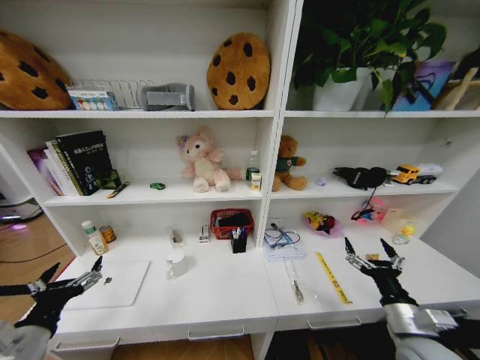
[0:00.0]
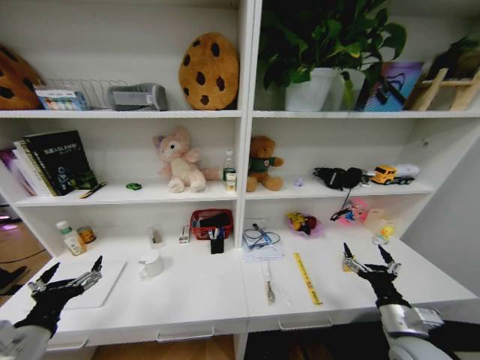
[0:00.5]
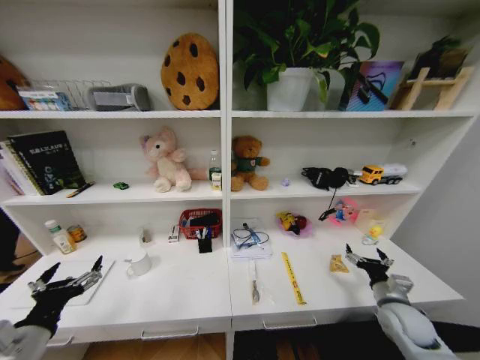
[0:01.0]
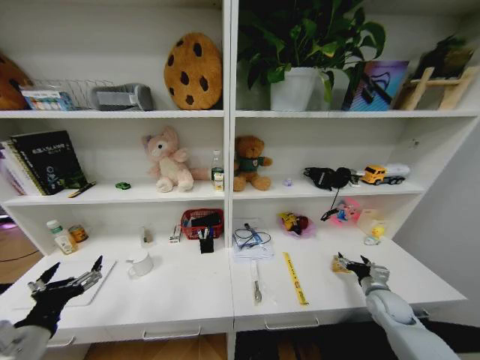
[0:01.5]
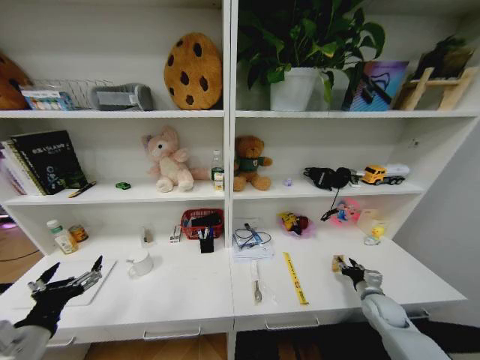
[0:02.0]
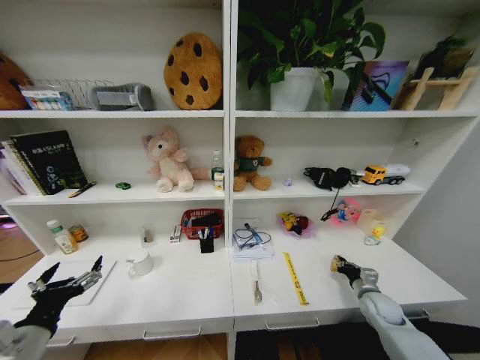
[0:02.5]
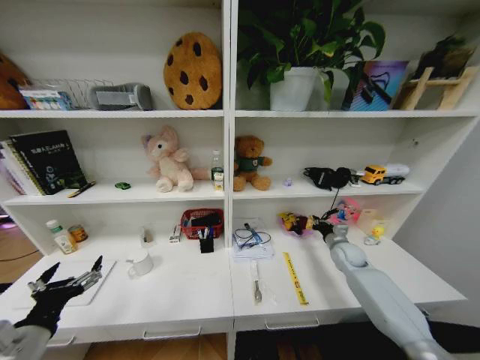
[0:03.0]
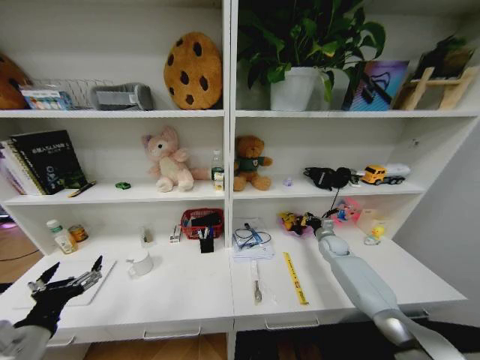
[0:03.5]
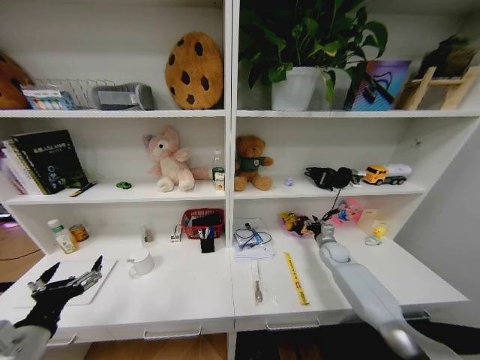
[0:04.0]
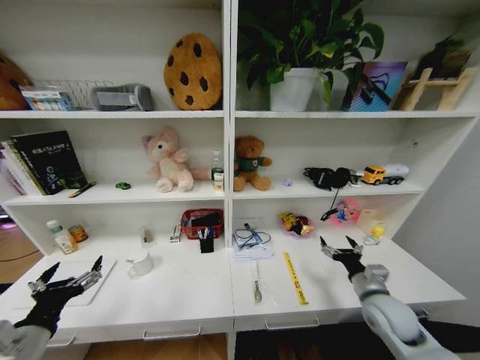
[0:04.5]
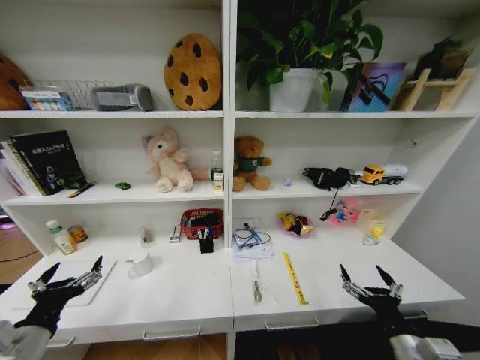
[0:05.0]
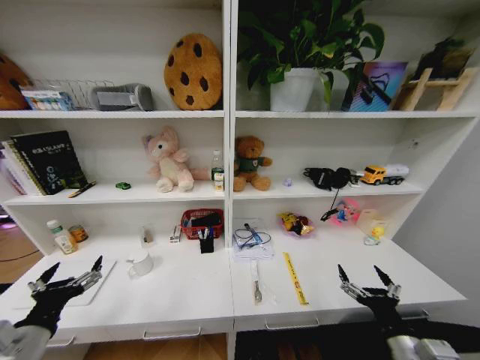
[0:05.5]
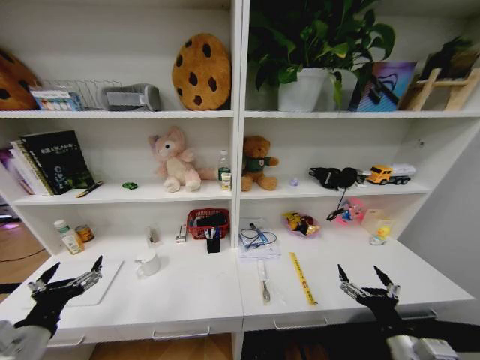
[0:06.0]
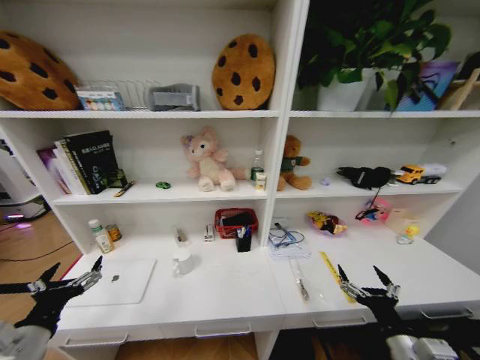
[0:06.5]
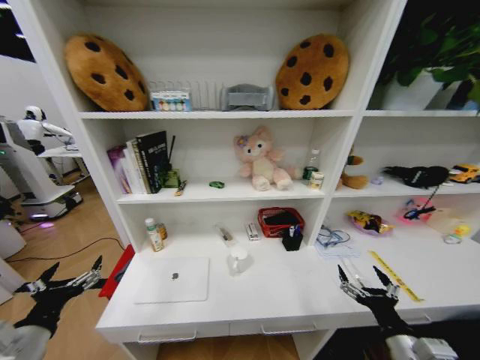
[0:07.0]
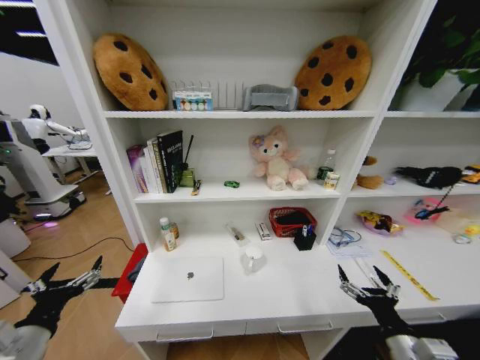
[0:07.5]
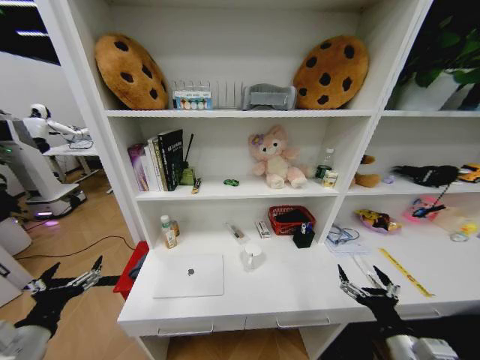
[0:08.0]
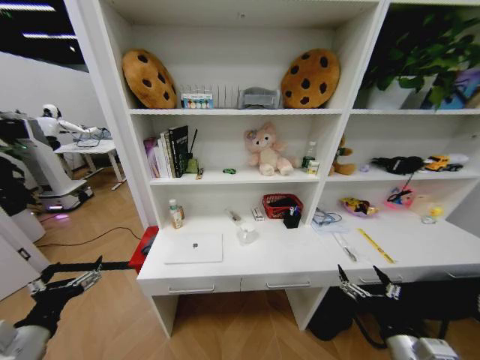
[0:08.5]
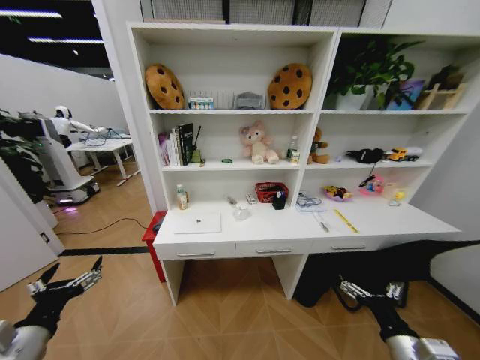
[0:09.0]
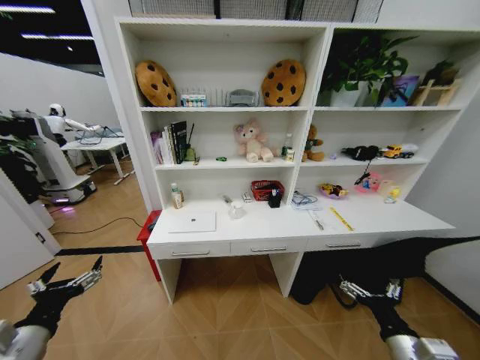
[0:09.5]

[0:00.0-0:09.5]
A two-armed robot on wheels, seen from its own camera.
Task of the whole recording: Organize the objects on the table.
0:00.0 to 0:02.0: The right gripper travels forward, downward and to the right by roughly 20 cm, and closes.
0:02.0 to 0:04.0: The right gripper goes roughly 20 cm forward.
0:04.0 to 0:05.5: The right gripper is displaced backward by roughly 40 cm, and opens up.

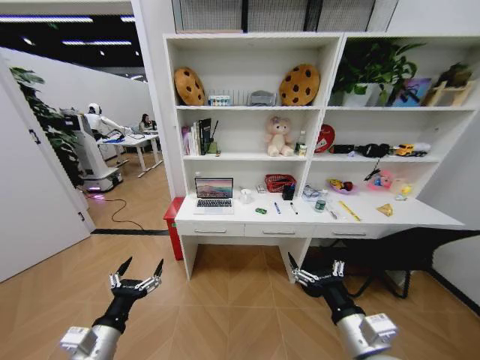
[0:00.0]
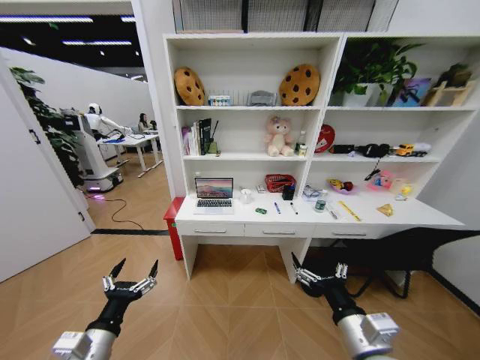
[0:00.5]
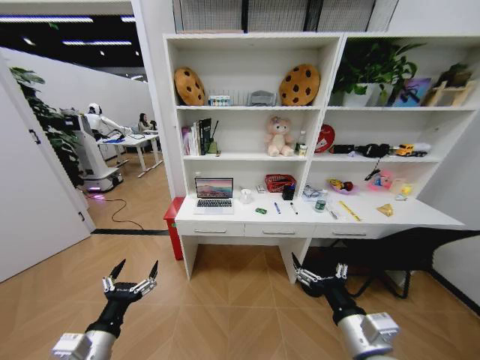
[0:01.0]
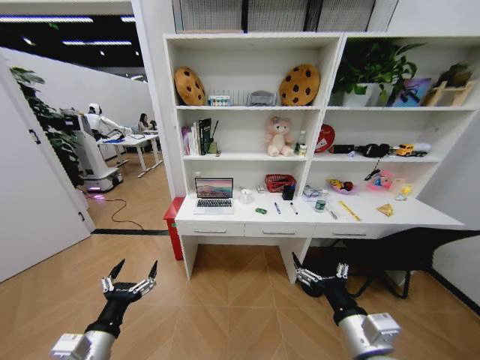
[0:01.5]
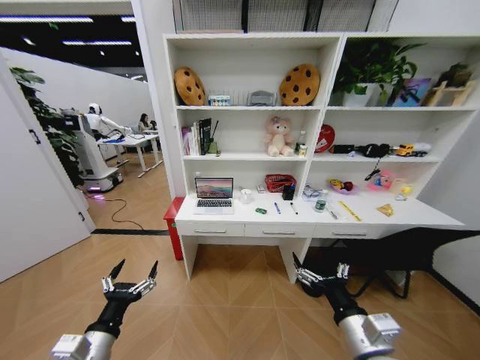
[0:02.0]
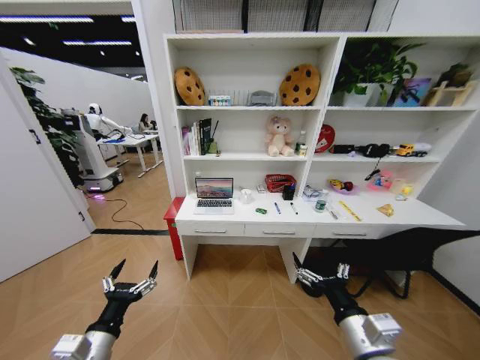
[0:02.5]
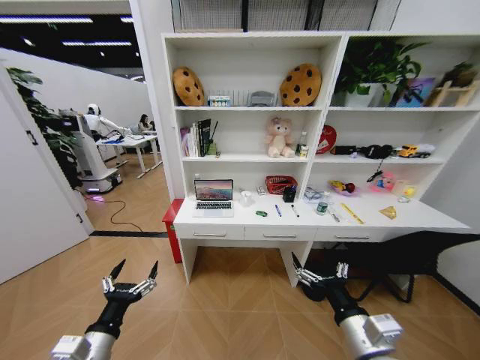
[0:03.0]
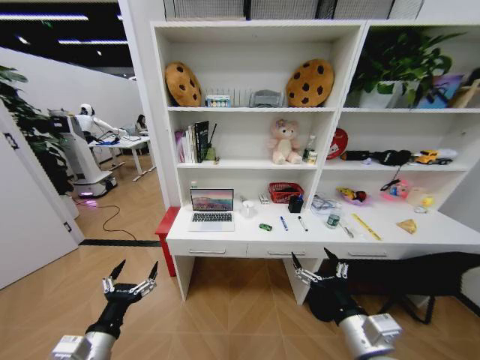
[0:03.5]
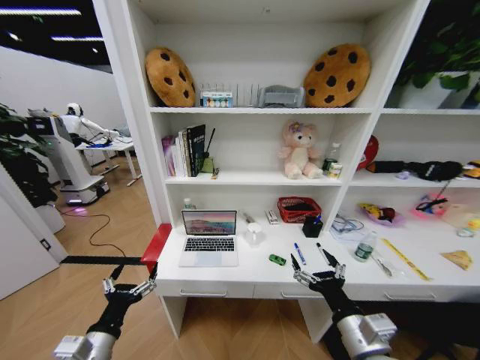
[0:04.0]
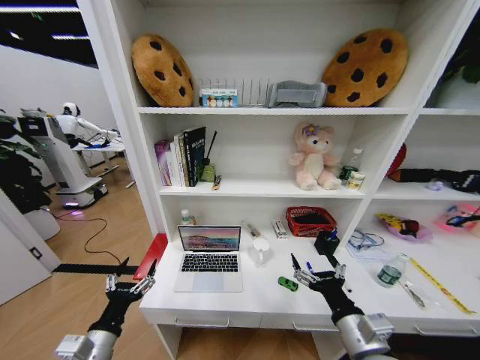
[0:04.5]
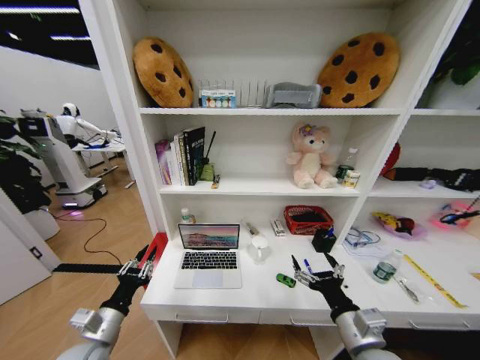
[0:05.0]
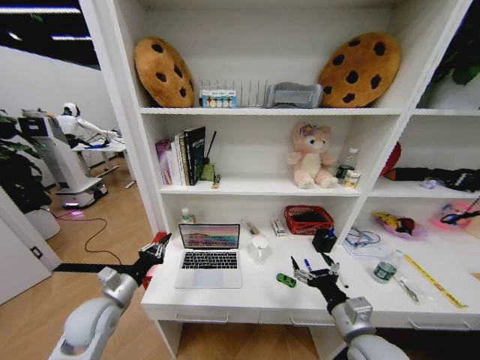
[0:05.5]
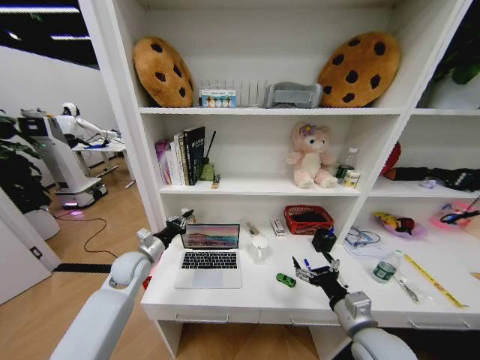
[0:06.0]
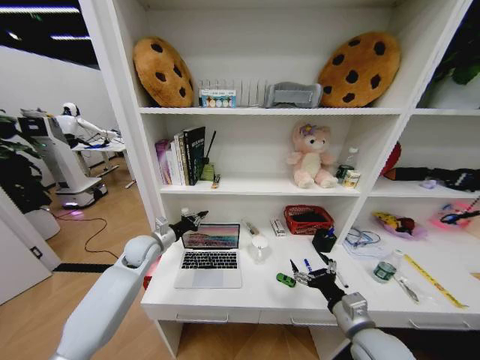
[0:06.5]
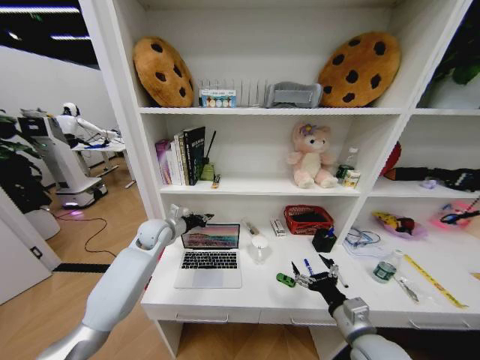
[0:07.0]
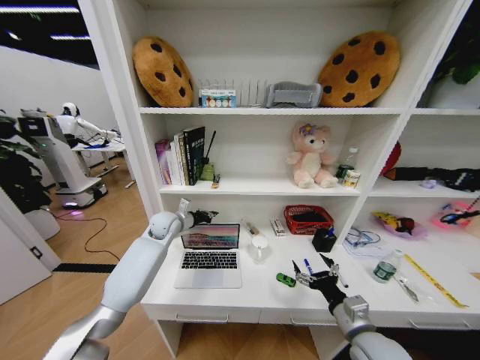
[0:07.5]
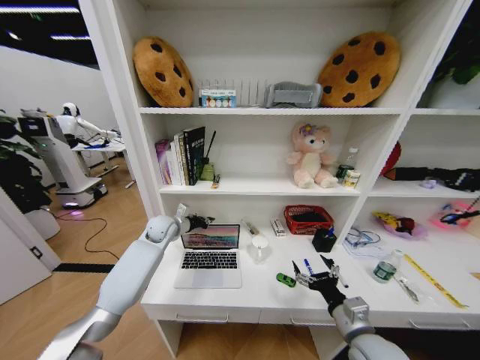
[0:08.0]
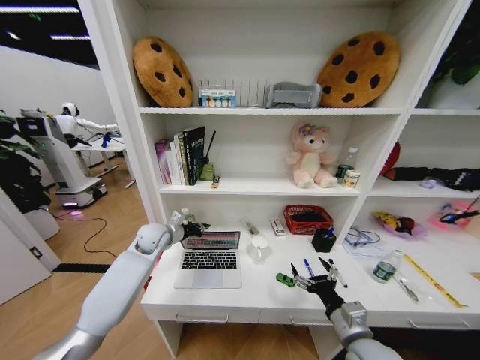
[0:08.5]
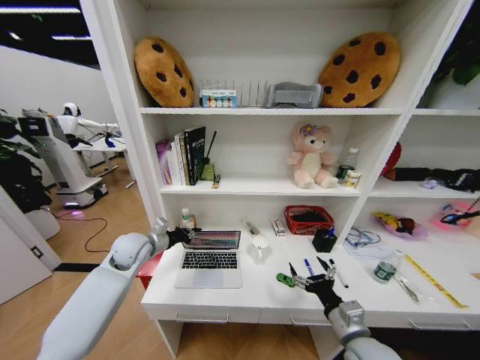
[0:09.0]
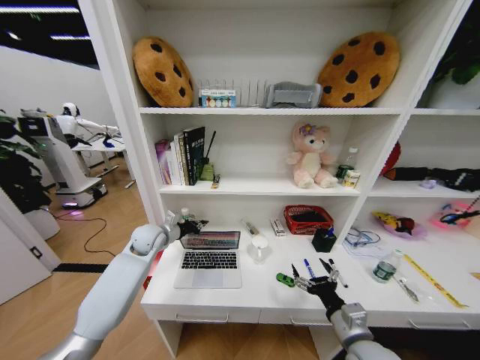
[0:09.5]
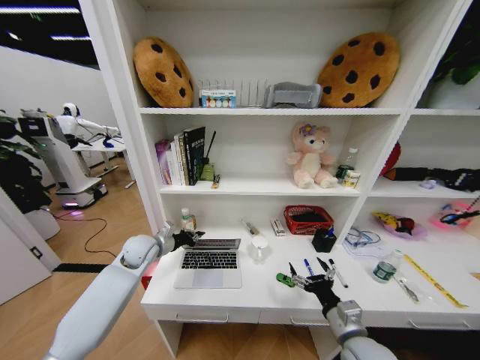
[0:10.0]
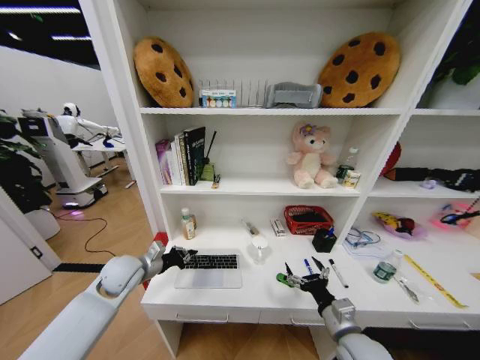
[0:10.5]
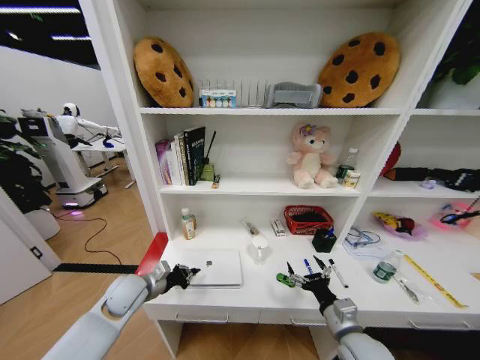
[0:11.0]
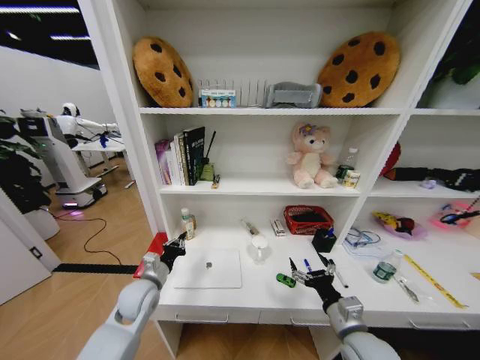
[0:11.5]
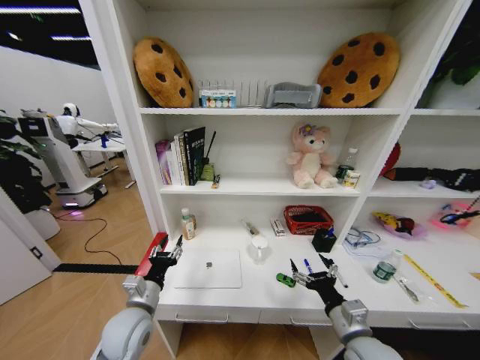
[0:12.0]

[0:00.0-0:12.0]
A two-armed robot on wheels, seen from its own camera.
Task of the whole recording: Organize the objects on the table.
0:04.0 to 0:06.0: The right gripper shifts by about 5 cm, while the left gripper shifts some 25 cm forward, and closes its fingers.
0:06.0 to 0:08.0: The left gripper heads forward and to the right, covering about 15 cm.
0:08.0 to 0:10.0: The left gripper moves backward, approximately 10 cm.
0:10.0 to 0:12.0: The left gripper moves backward, roughly 20 cm, and opens its fingers.

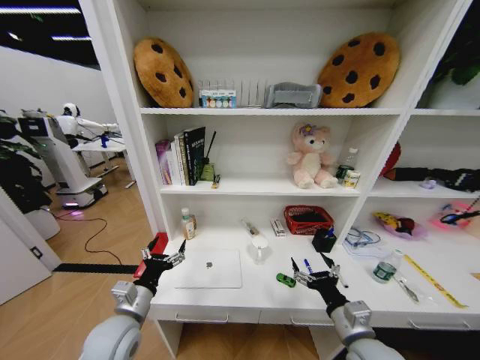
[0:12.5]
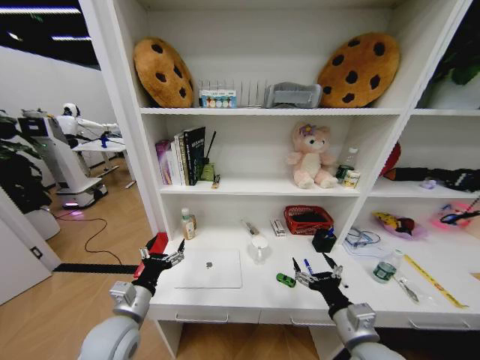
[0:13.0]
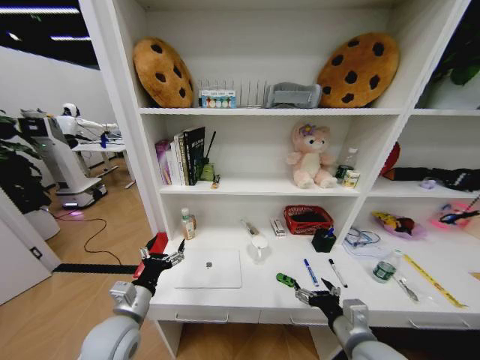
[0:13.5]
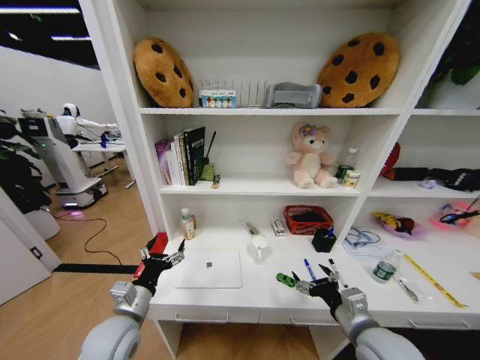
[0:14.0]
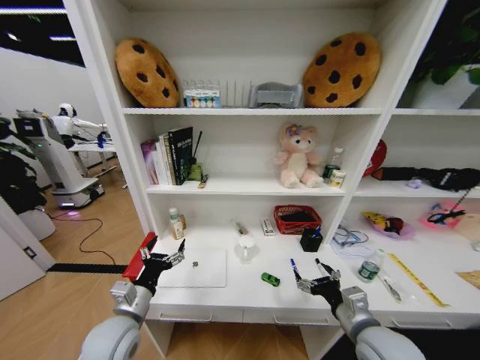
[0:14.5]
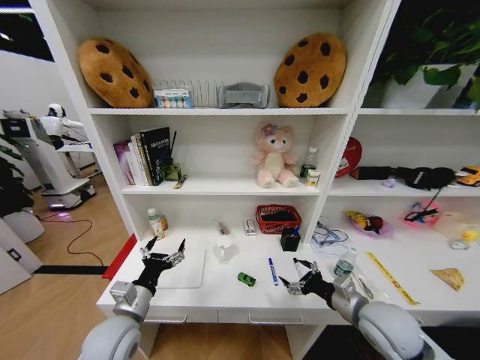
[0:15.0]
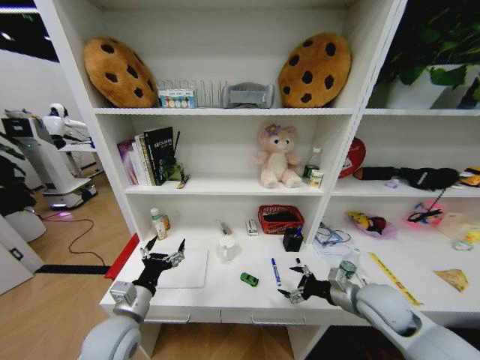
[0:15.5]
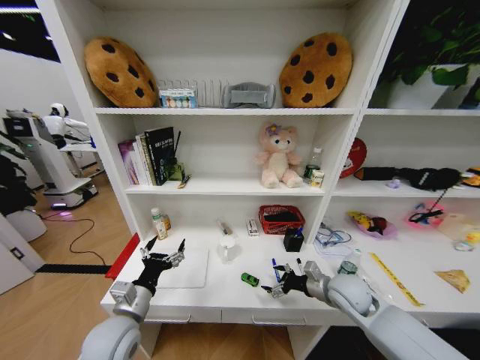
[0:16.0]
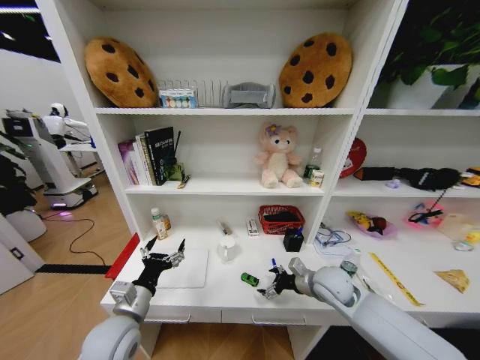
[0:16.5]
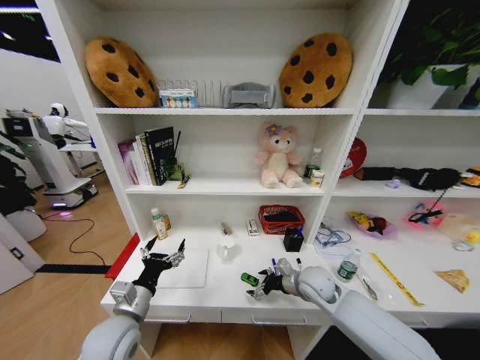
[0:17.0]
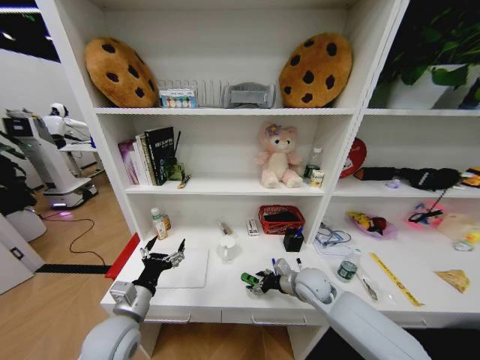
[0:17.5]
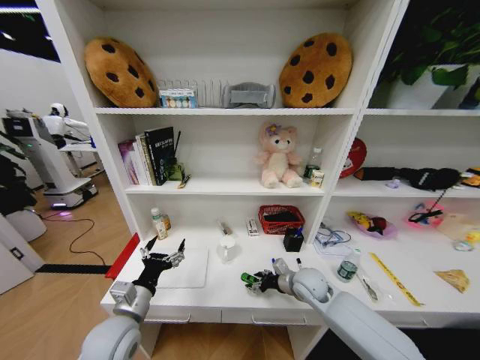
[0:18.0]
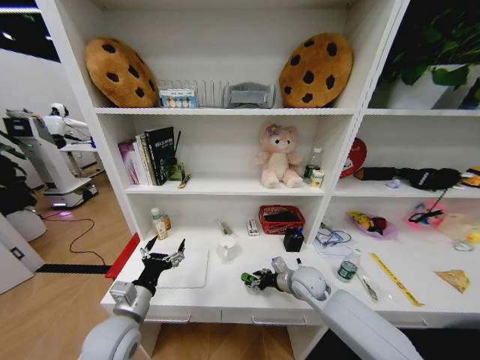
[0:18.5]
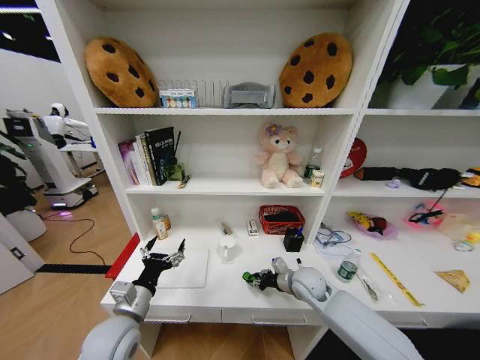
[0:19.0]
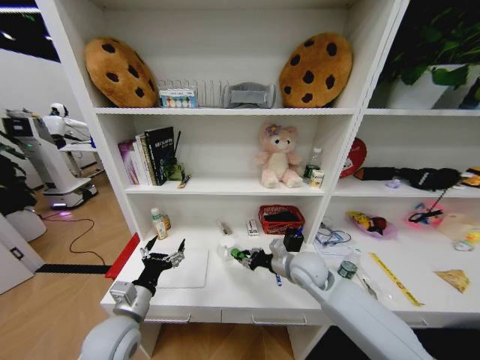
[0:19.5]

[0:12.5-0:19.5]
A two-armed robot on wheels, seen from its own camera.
Task of the whole recording: Organize the objects on the table.
0:14.5 to 0:16.0: The right gripper shifts approximately 15 cm forward.
0:16.0 to 0:17.5: The right gripper travels to the left by approximately 5 cm.
0:17.5 to 0:19.5: The right gripper moves upward, about 10 cm, and closes its fingers.
